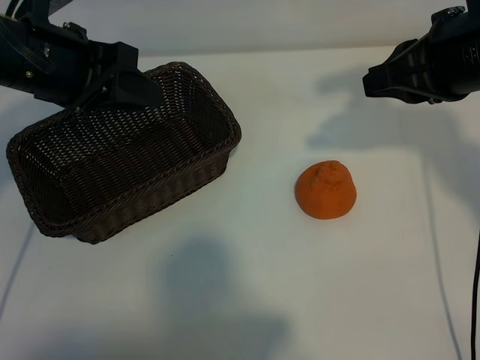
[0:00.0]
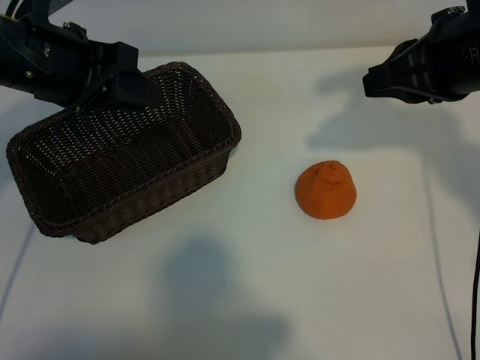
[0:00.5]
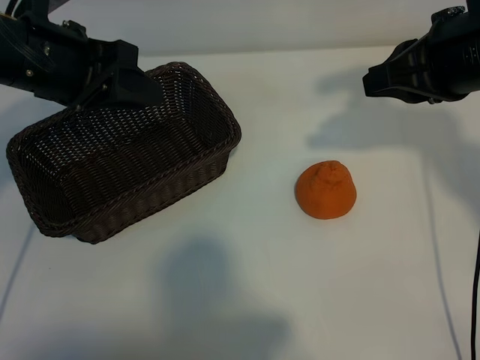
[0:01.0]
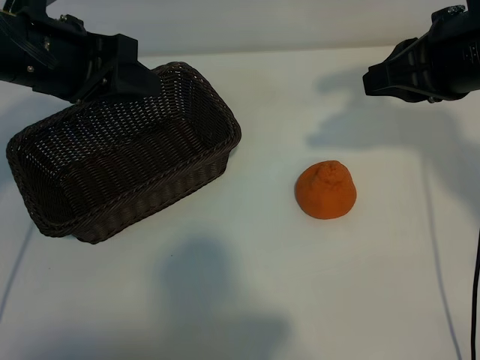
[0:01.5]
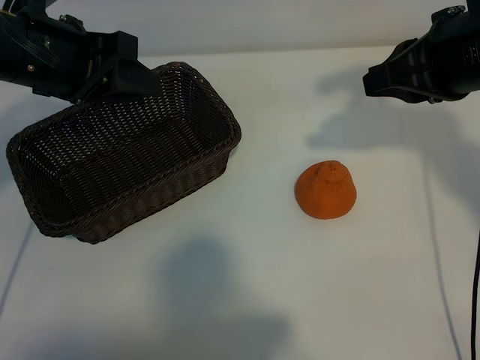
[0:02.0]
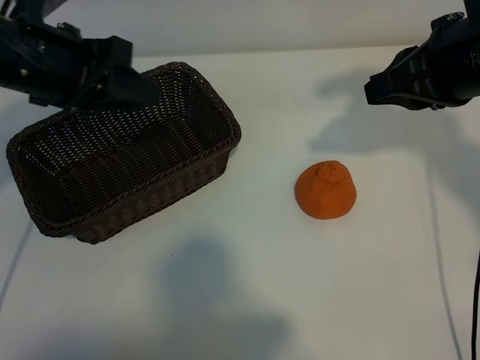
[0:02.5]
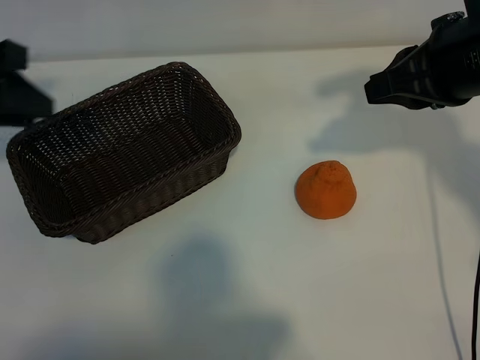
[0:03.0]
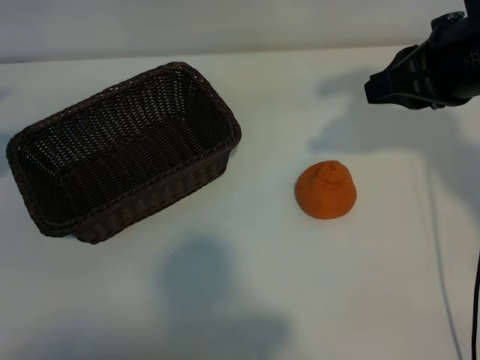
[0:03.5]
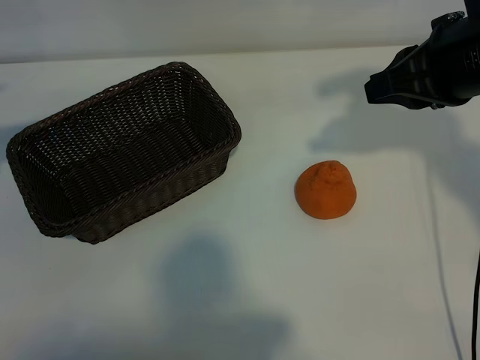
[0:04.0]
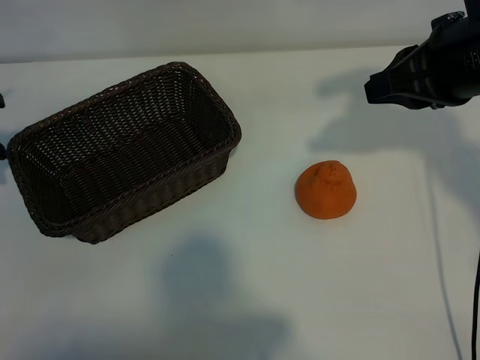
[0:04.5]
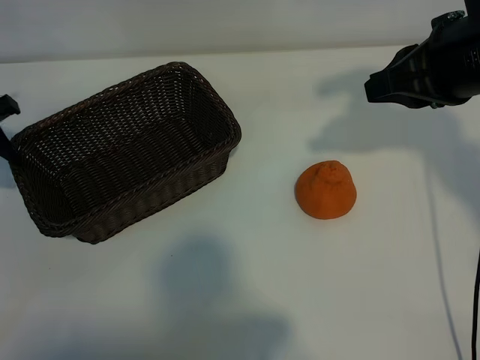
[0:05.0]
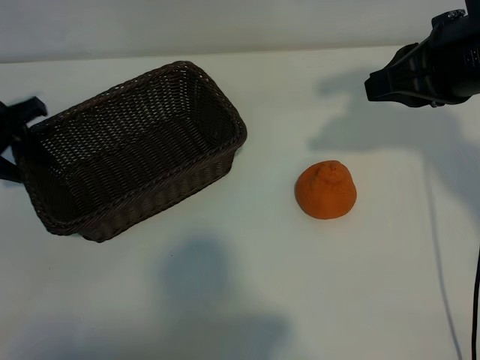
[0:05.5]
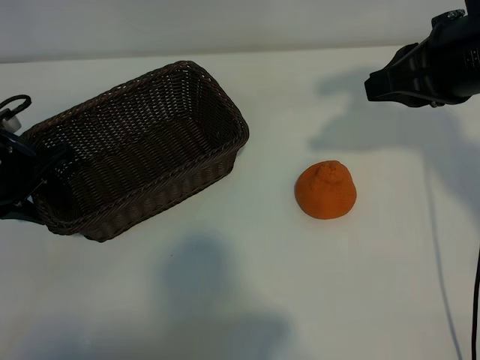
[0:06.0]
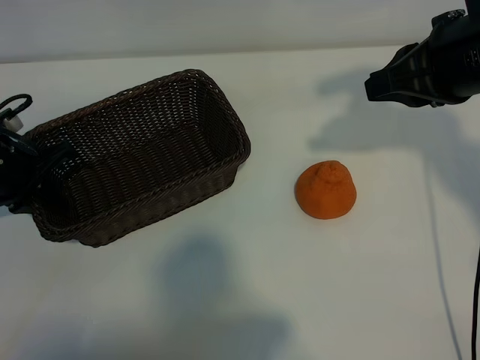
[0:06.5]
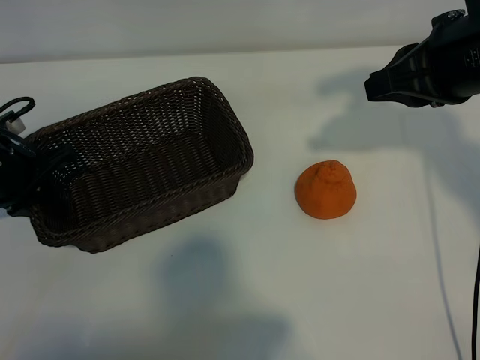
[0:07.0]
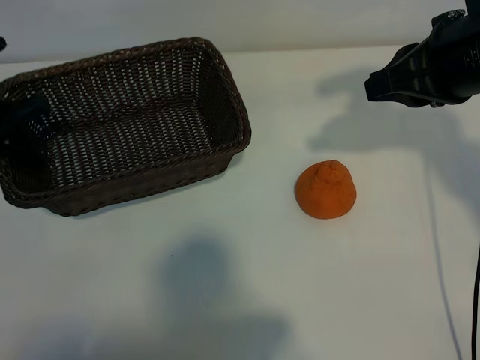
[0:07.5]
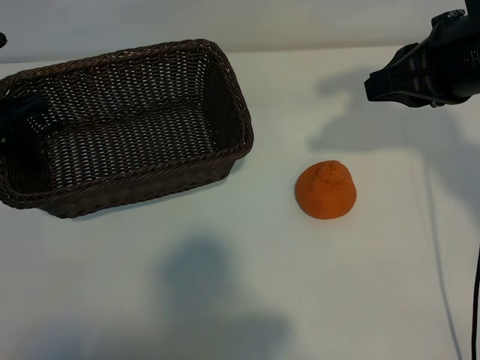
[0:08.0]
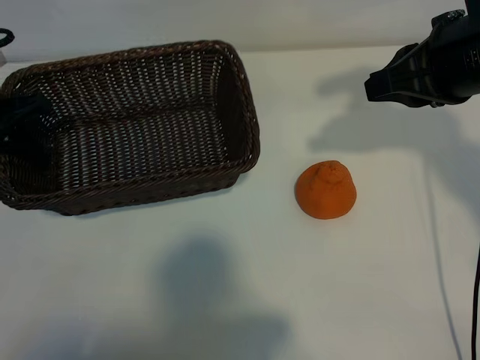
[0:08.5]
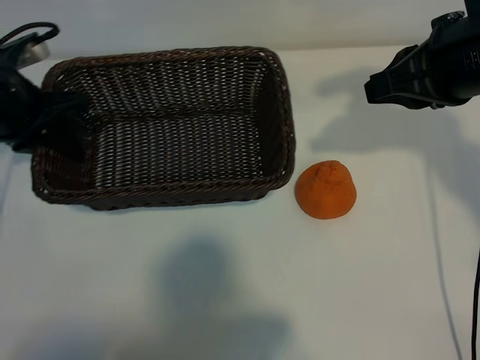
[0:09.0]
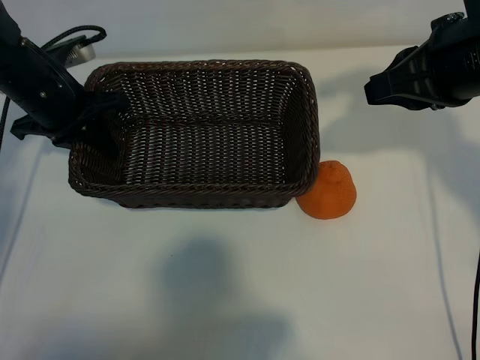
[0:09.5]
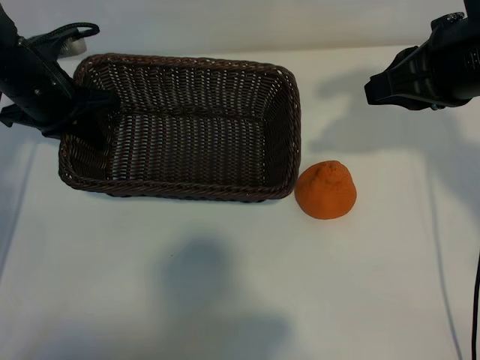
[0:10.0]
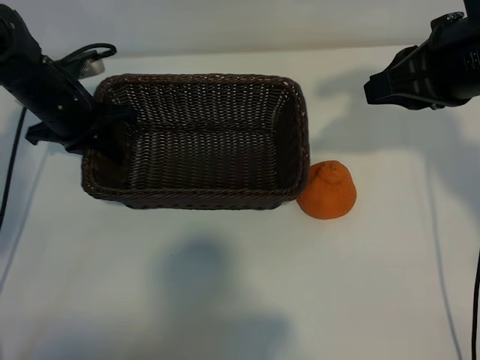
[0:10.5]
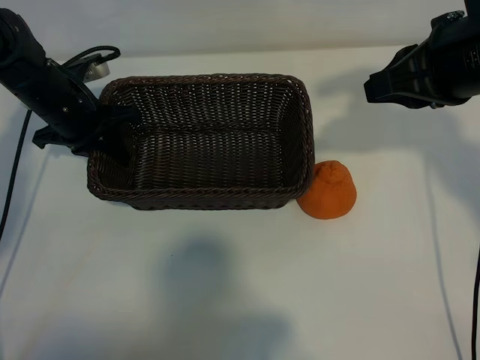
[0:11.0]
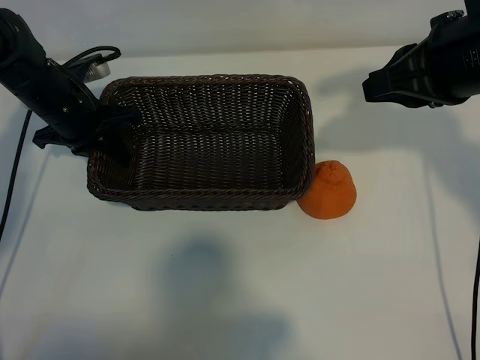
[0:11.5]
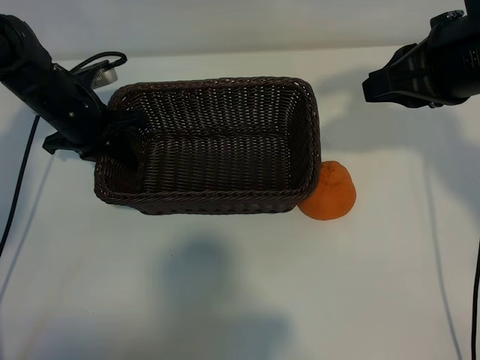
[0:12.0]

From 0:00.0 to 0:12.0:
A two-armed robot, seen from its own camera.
Task of the whole recording: pick up the orange and put it into the basket.
Step, from 0:01.0 to 0:06.0: Grasp the basket with left gripper.

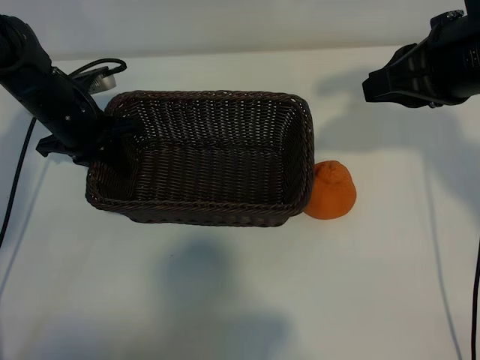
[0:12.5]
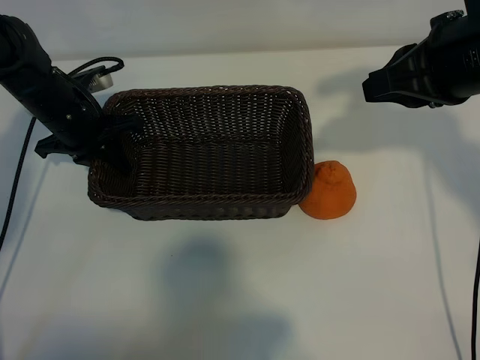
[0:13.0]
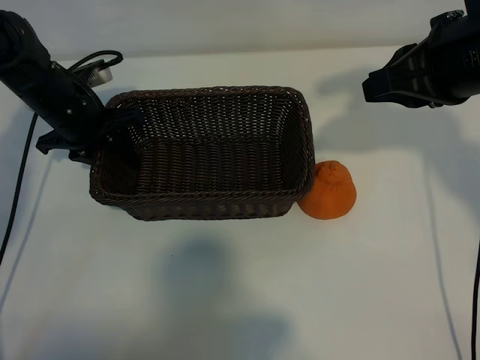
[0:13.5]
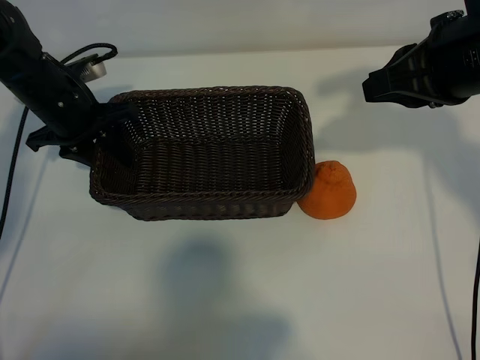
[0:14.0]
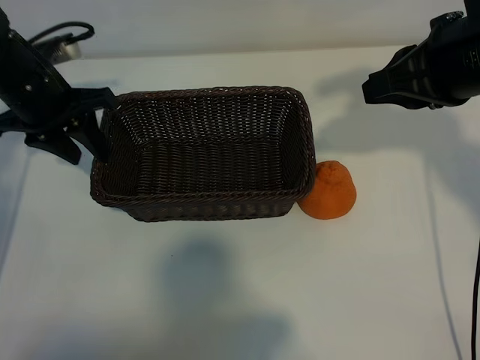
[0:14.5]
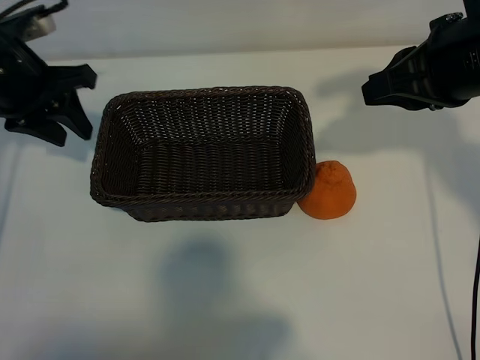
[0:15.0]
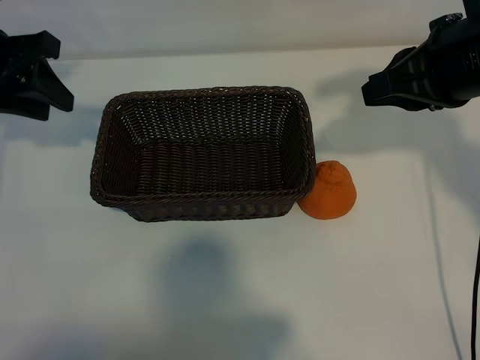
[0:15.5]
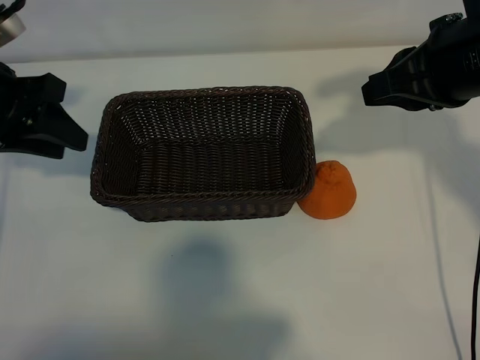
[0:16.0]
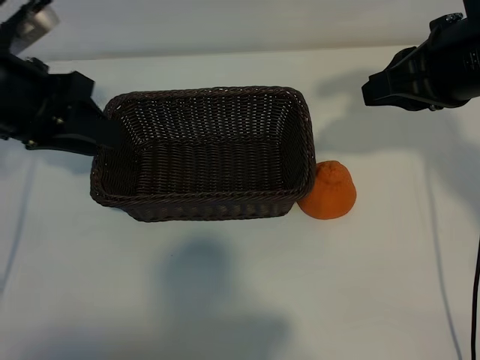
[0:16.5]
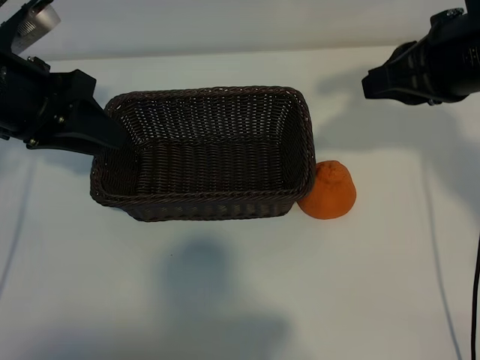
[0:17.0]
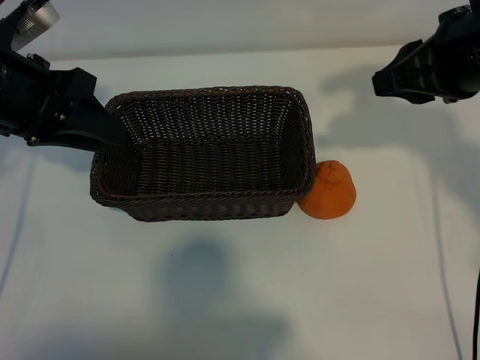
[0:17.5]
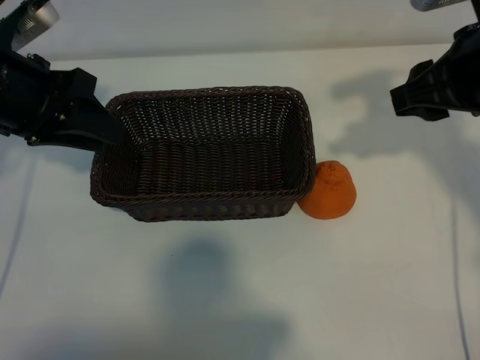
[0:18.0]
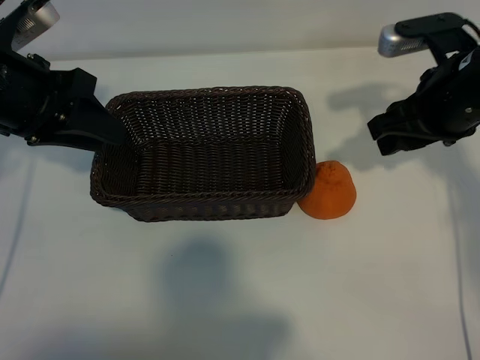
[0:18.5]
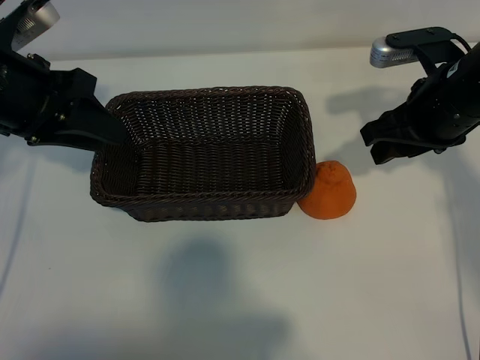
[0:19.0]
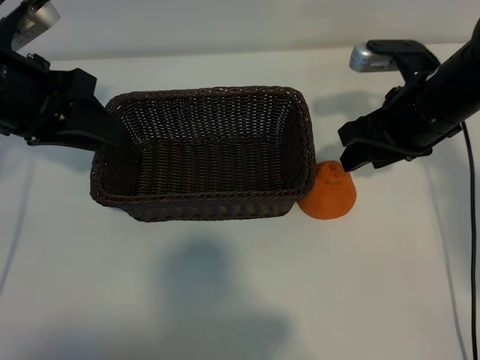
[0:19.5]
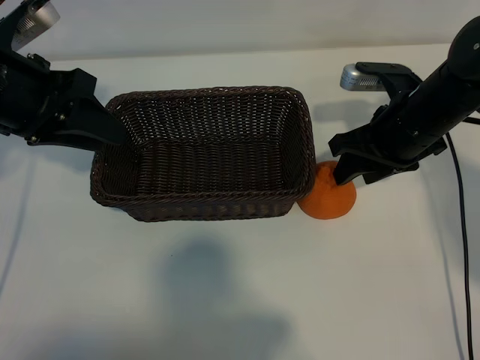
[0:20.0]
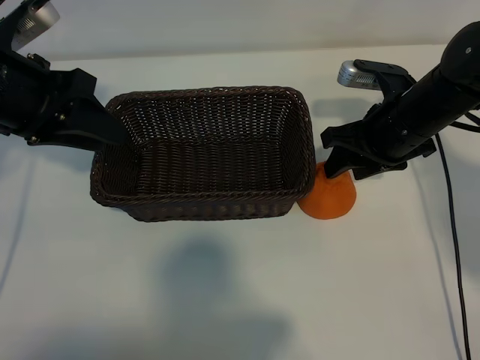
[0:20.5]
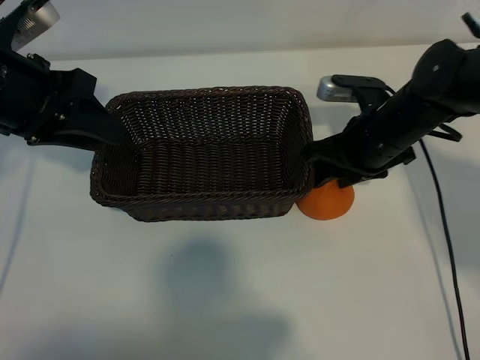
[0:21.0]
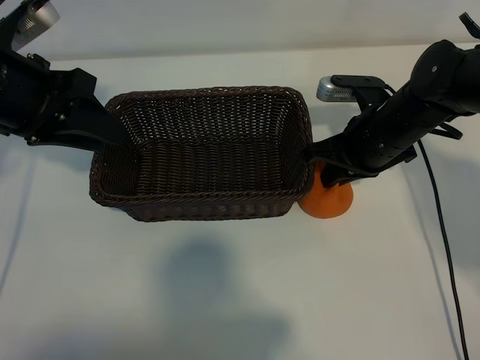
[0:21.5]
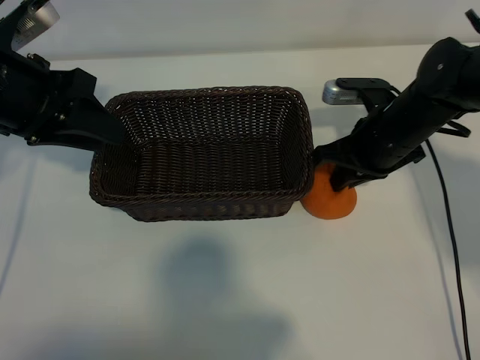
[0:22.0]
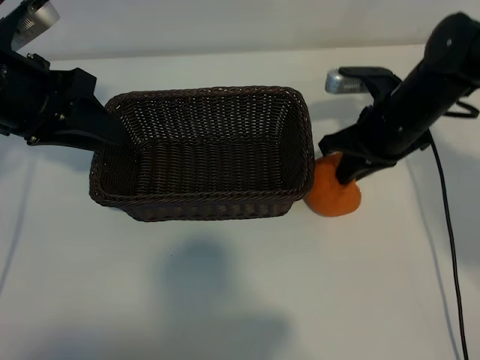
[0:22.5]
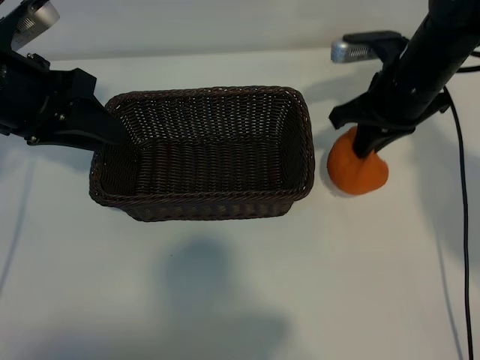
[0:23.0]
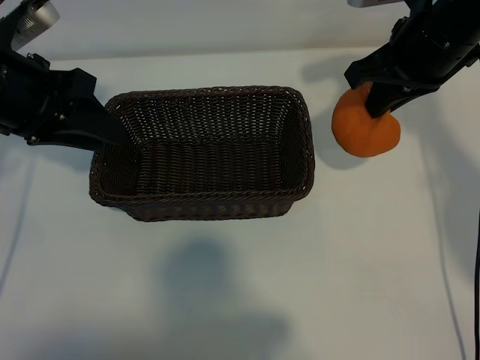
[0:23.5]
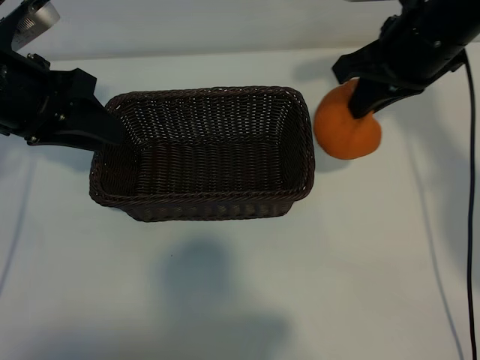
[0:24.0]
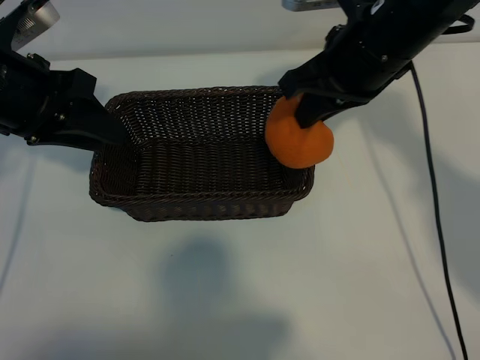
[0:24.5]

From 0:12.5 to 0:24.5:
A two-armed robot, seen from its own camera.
Task of the whole recording: pick up the orange and put it into the basket.
Step, from 0:13.5 to 0:21.5: Grasp the orange with right gripper.

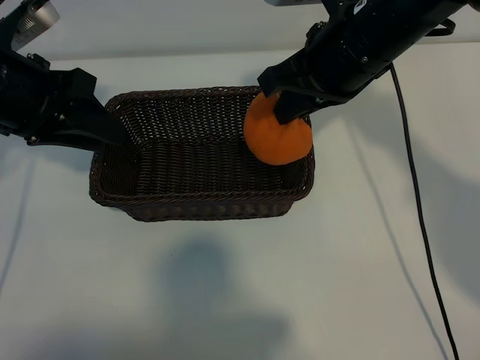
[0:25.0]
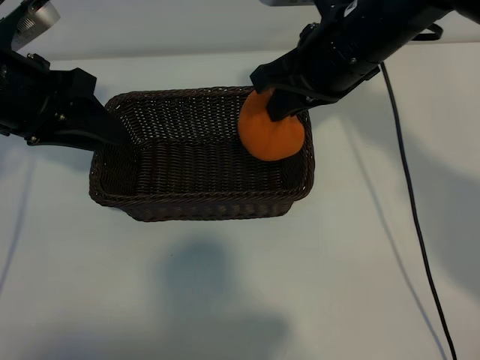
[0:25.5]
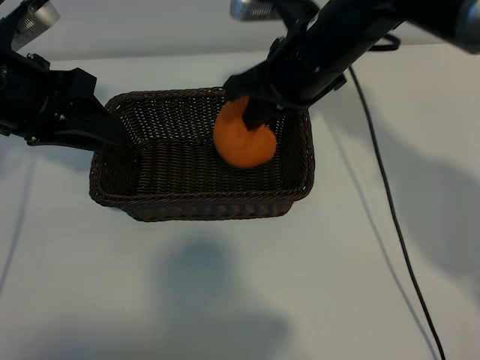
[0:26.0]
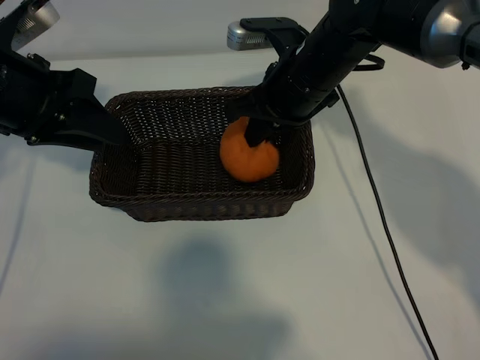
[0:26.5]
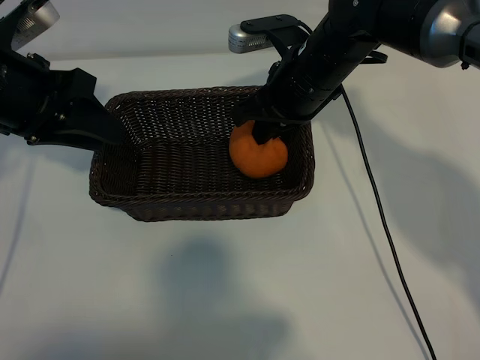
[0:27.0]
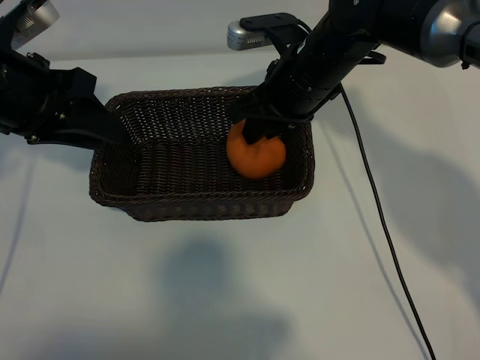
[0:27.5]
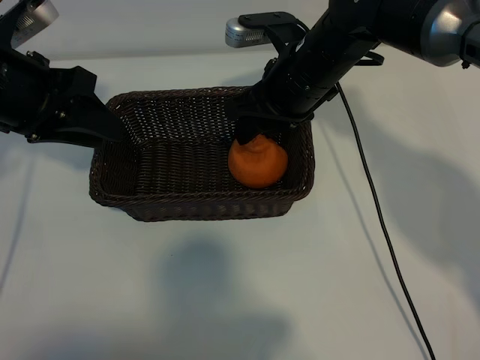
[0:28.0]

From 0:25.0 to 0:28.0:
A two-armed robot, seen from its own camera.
Task of the whole recording: pick up the orange and put it into the basket.
Step, from 0:25.0 to 0:27.5: Place the orange in the basket with right gripper.
